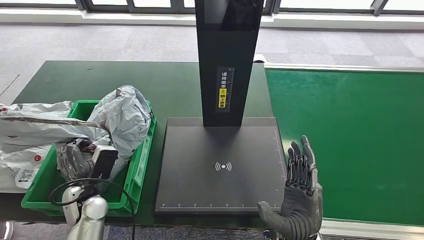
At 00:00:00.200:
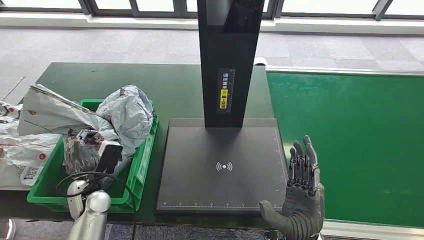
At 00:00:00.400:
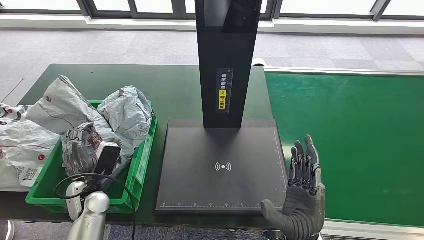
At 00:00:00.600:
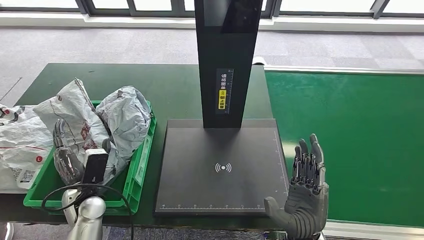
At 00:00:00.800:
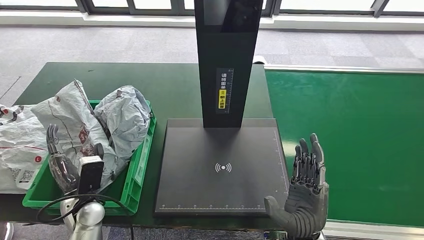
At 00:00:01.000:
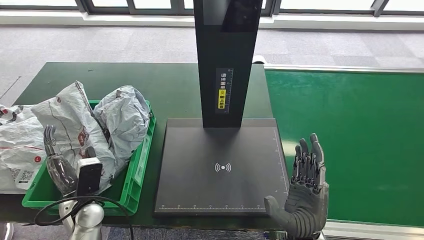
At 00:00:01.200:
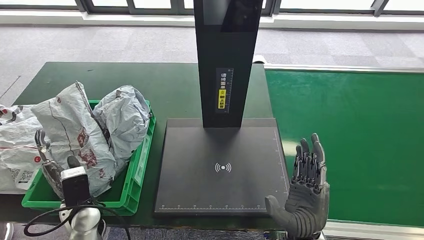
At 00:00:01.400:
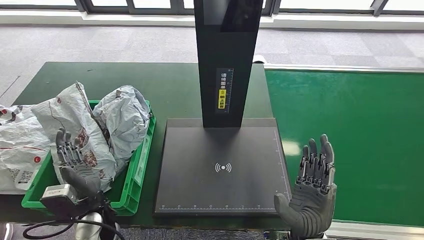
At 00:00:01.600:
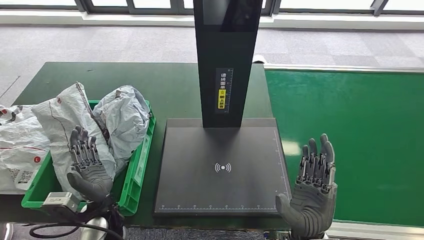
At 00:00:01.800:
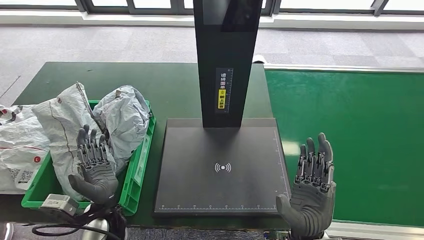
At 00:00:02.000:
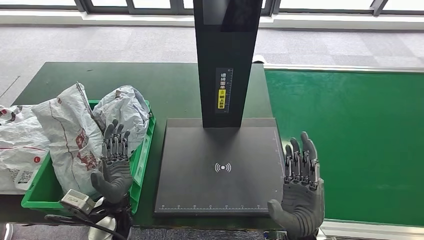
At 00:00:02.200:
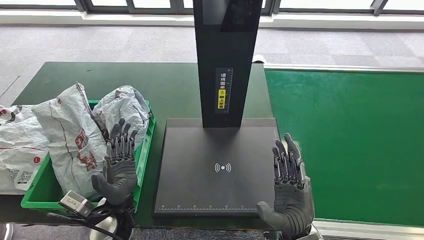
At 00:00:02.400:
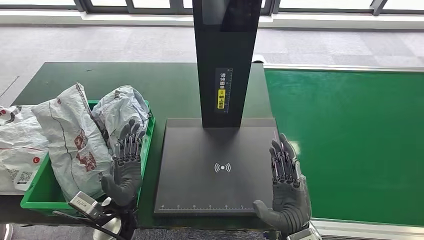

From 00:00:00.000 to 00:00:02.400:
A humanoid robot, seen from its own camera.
Step, from 00:00:00.000 to 00:00:02.200: Place the parcel into the delivery box.
From 00:00:01.200 to 00:00:02.400: The left hand moves to the right, some 10 cm.
